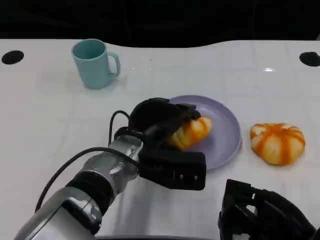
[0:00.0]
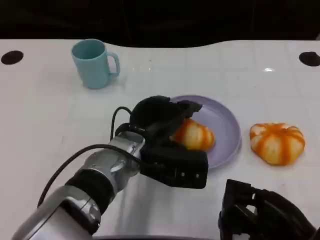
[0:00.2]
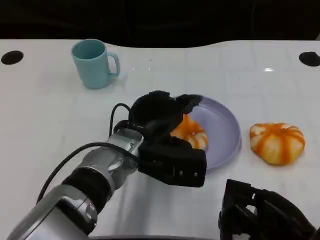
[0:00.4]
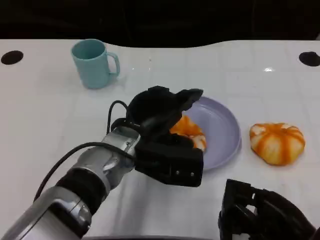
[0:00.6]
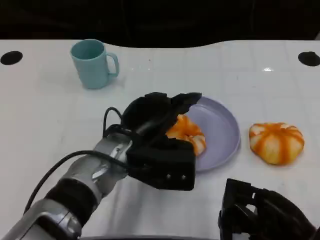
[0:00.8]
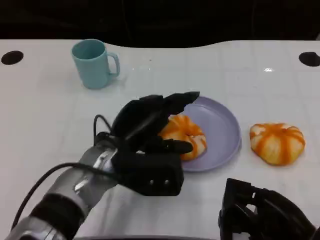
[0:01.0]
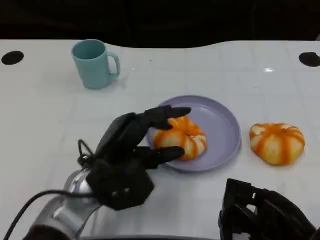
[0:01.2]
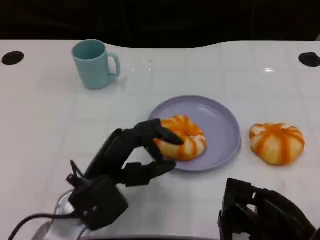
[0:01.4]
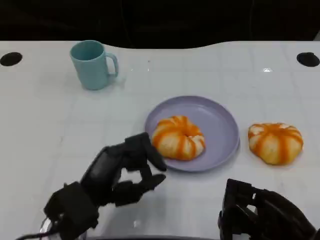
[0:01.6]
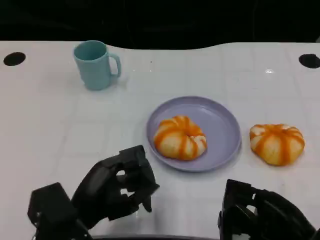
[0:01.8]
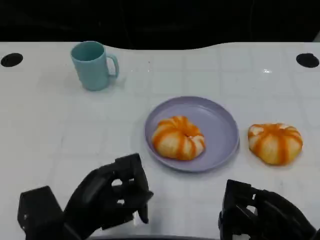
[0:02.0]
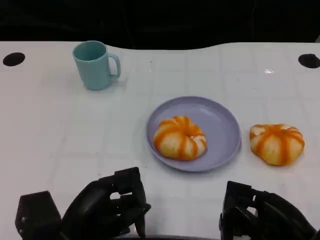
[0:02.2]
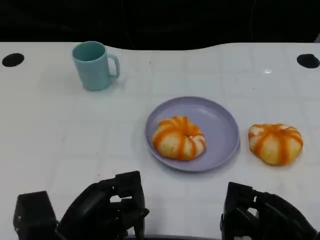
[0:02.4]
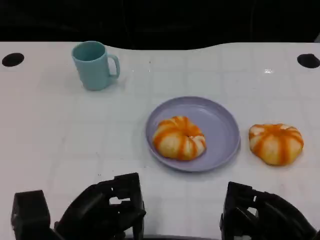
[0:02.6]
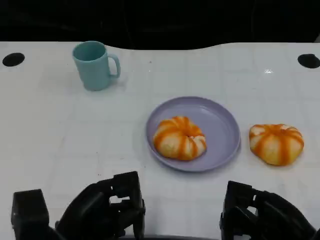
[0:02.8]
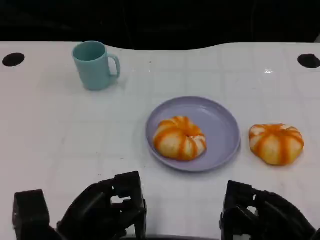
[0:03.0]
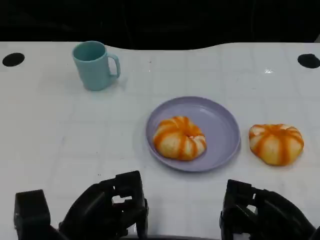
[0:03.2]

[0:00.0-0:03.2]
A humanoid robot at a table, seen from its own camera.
Task of the whole recording: Grasp the bread from the table and place it into the plate.
0:00.0 to 0:01.6: The left hand goes some 15 cm to the left and backward.

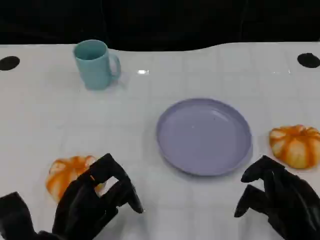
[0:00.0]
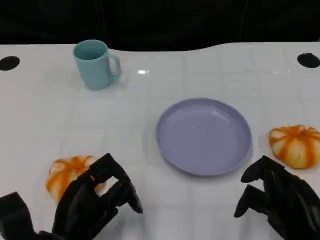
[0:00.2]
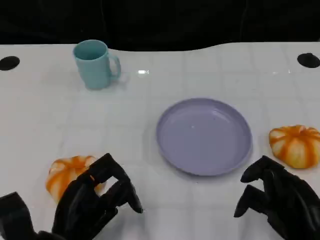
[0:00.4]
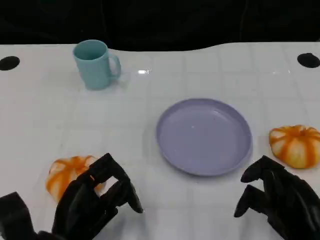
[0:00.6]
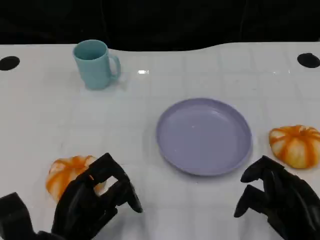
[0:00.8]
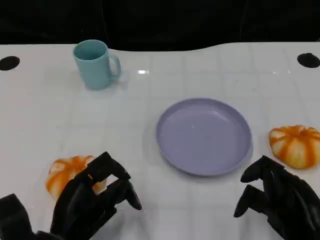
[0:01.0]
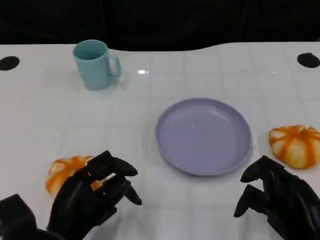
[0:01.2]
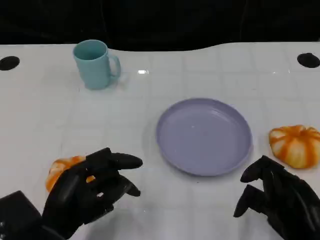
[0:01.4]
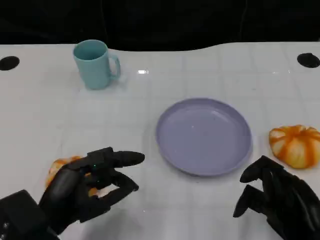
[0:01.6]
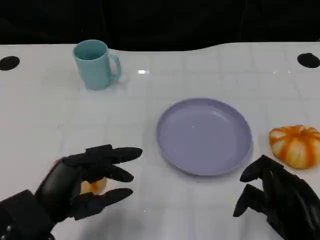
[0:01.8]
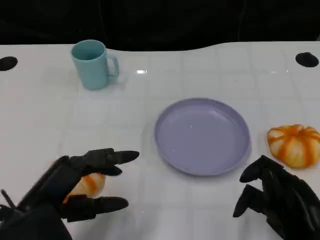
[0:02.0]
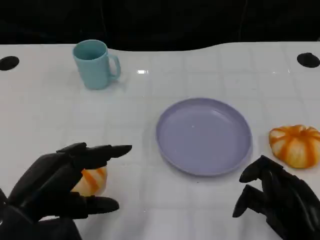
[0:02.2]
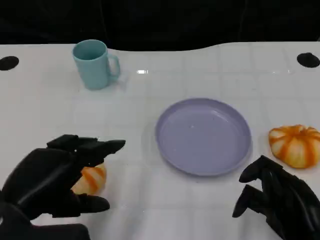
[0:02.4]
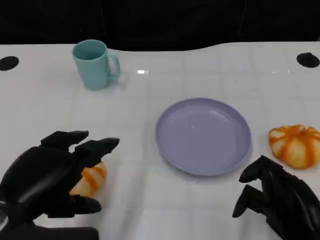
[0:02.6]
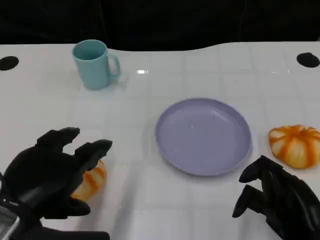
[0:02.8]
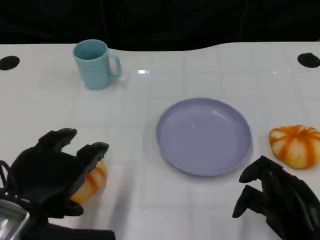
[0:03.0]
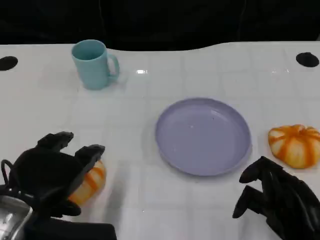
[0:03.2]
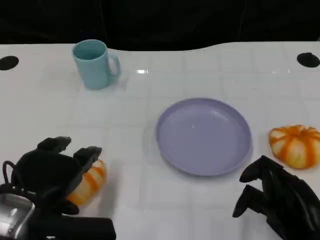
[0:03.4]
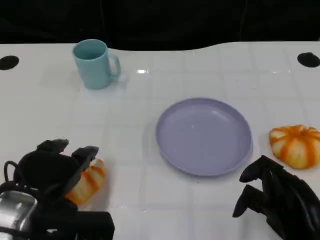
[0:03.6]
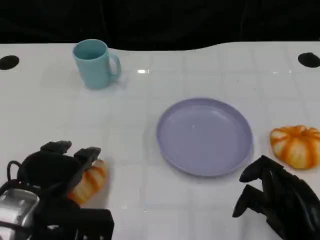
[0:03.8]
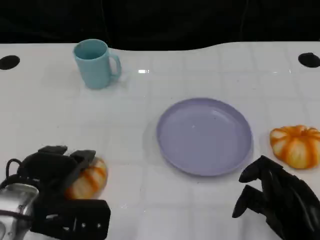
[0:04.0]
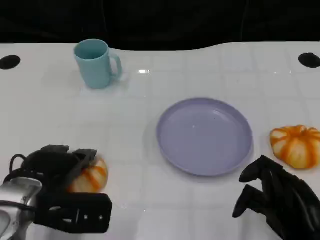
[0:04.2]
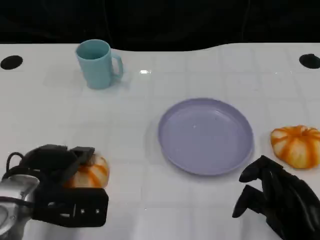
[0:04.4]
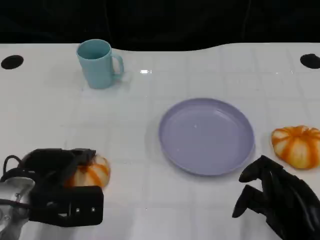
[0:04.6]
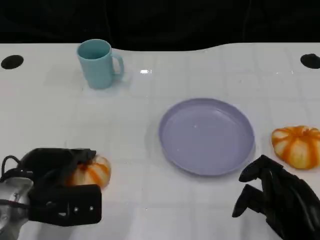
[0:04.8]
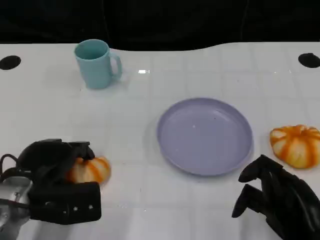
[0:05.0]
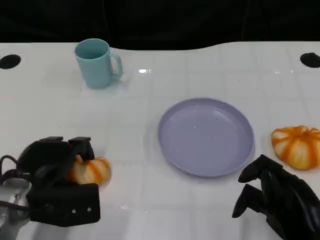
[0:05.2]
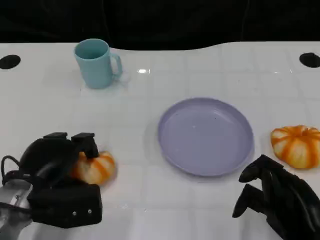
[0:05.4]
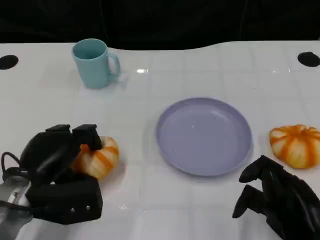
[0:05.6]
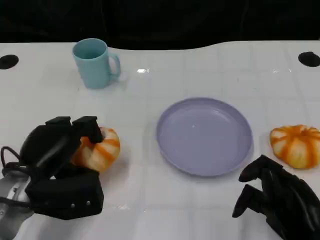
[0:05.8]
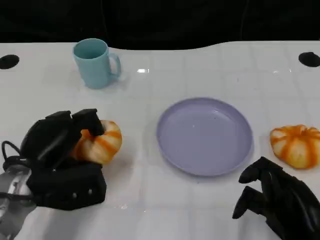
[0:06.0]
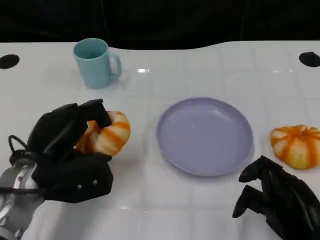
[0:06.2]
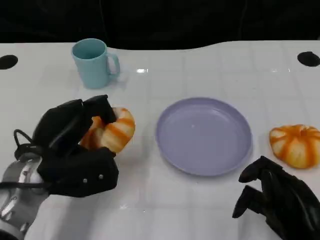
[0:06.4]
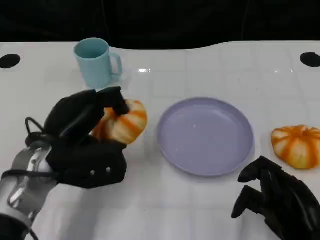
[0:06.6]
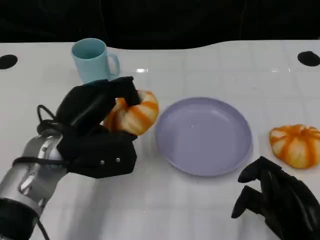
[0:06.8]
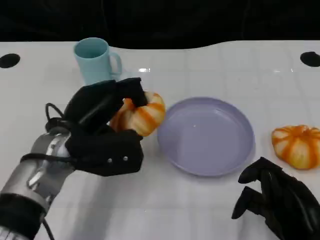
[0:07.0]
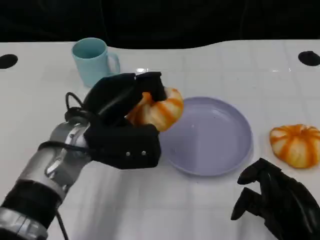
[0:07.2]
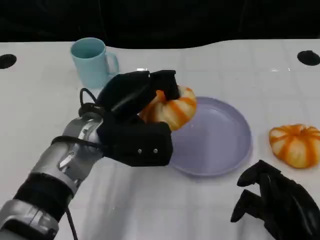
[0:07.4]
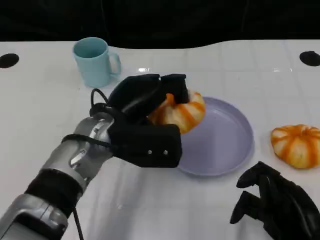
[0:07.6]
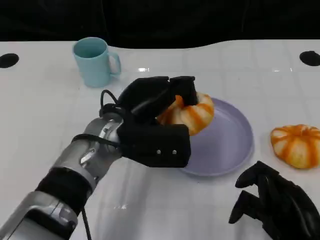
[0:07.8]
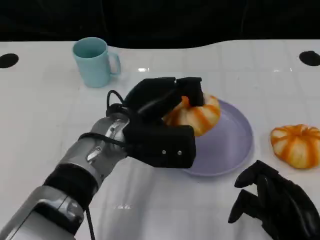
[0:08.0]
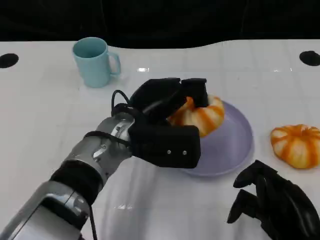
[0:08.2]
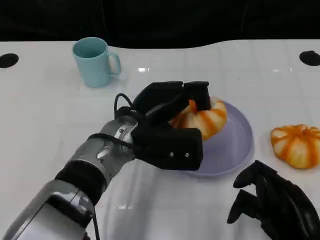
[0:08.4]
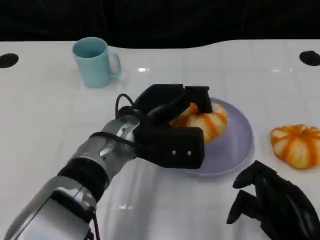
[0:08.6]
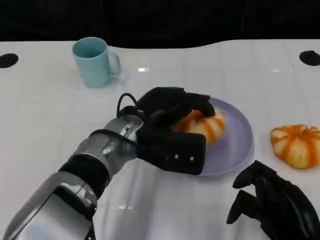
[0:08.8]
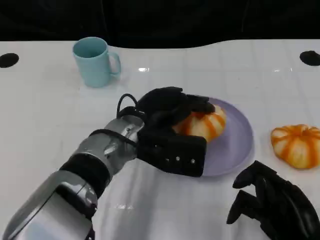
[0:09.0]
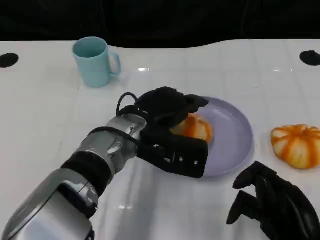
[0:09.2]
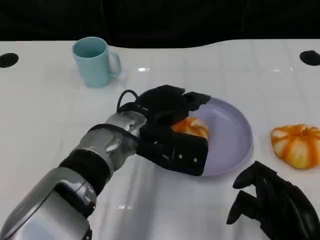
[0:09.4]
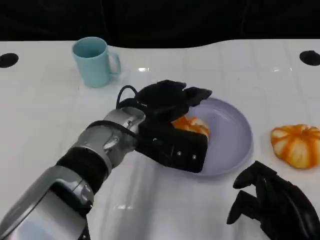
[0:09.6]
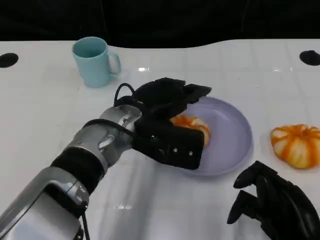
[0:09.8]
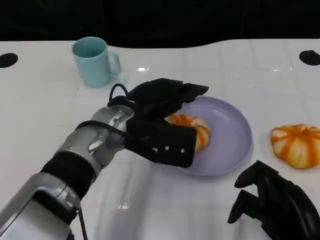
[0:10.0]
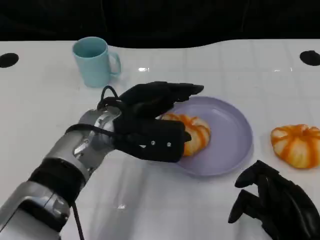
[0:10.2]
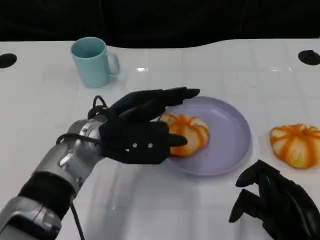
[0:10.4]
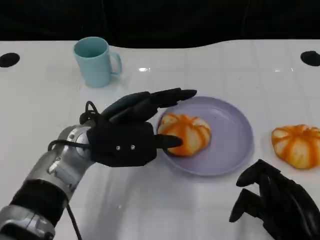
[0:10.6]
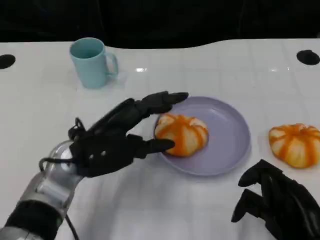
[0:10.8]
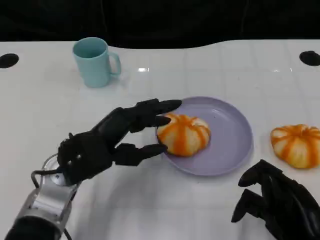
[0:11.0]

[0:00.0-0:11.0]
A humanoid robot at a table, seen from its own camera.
Task of the whole recording: Grasp the bread from the table and place it into the plate.
0:01.6 to 0:03.2: The left hand moves upward, about 5 cm.
0:03.2 to 0:04.8: The left hand moves downward and forward, about 10 cm.
0:06.2 to 0:07.8: The left hand moves to the right, roughly 10 cm.
0:09.4 to 0:11.0: The left hand goes approximately 10 cm to the left.

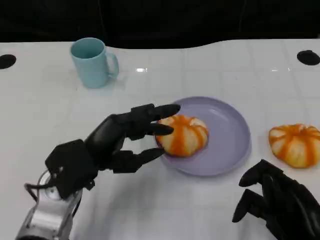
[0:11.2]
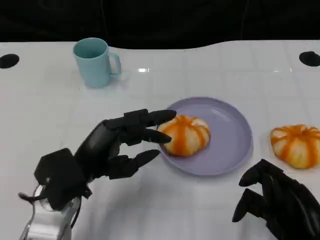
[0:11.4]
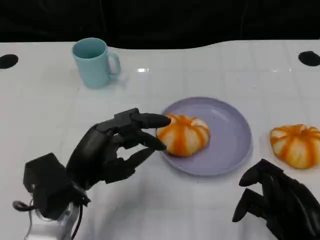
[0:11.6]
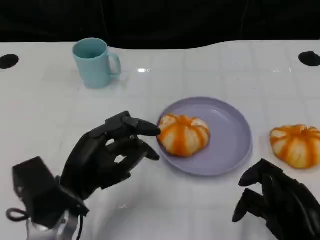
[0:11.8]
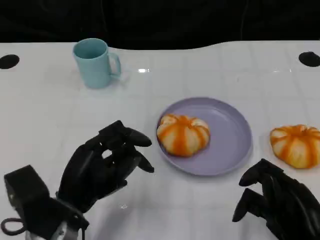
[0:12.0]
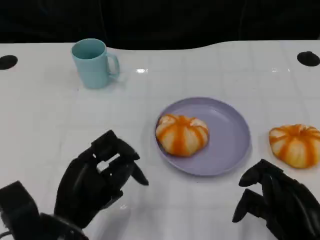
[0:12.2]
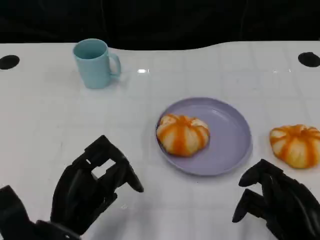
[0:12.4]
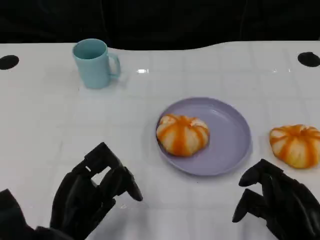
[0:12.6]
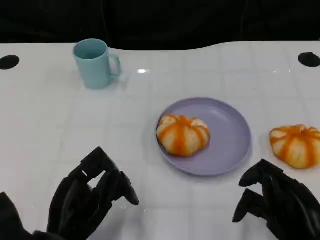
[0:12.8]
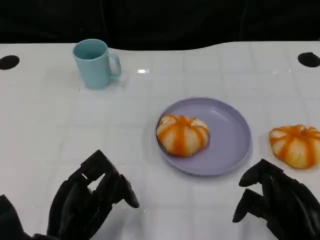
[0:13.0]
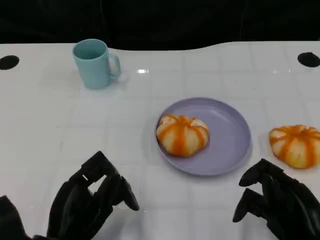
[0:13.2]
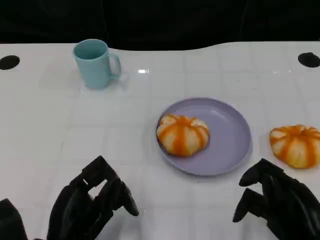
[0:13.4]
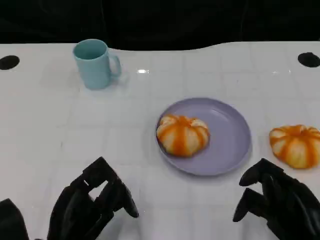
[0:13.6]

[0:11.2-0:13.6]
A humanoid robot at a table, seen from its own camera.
Task of the whole recording: Grasp the bread from the table and place it into the plate.
0:11.2 to 0:12.4: The left hand shifts some 5 cm backward.
0:12.4 to 0:13.6: The hands move only a little.

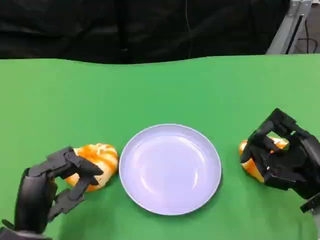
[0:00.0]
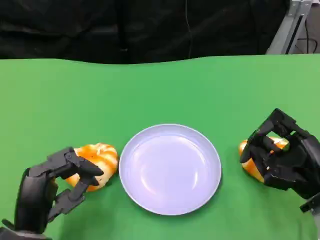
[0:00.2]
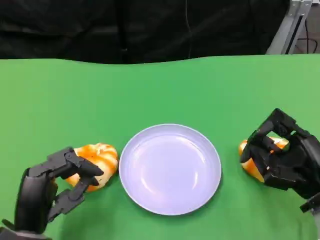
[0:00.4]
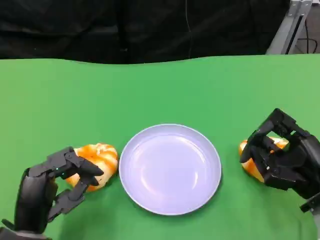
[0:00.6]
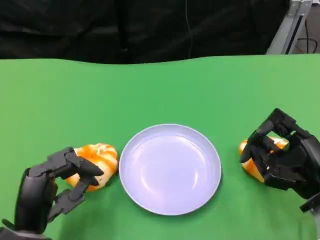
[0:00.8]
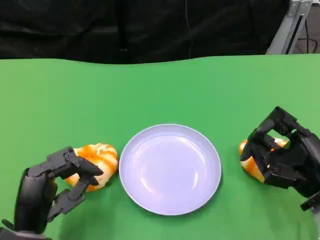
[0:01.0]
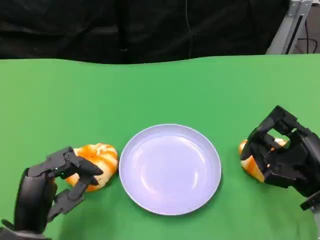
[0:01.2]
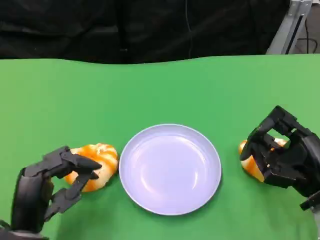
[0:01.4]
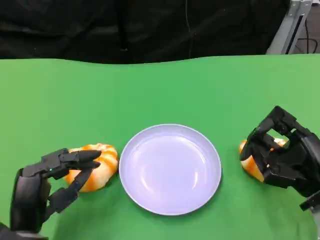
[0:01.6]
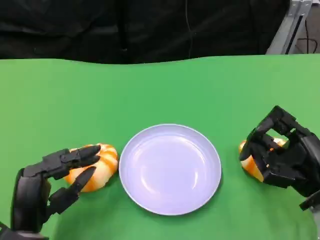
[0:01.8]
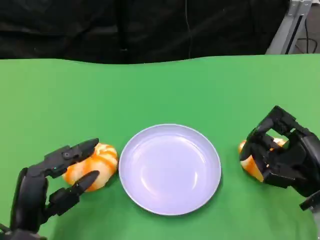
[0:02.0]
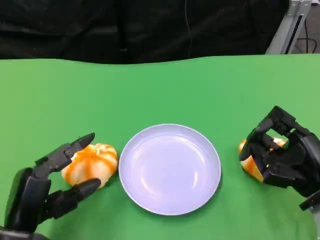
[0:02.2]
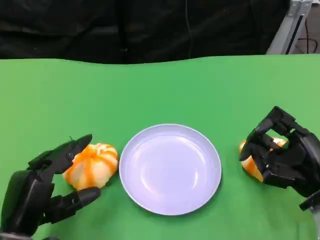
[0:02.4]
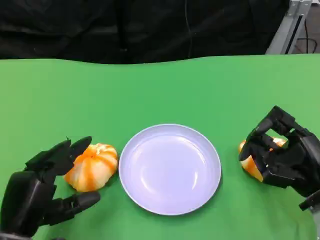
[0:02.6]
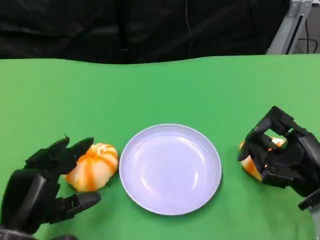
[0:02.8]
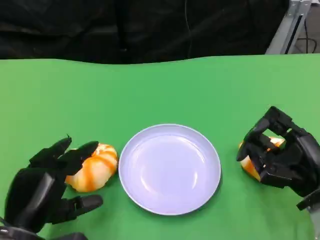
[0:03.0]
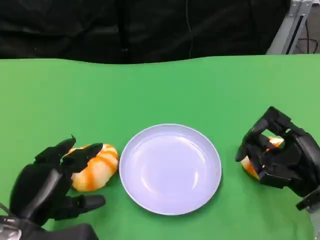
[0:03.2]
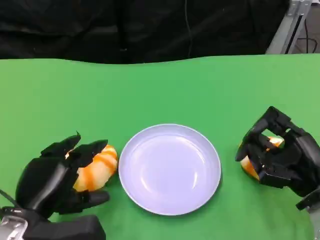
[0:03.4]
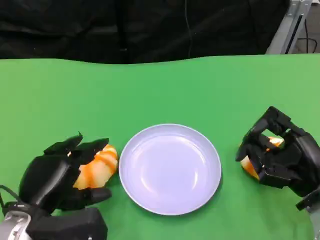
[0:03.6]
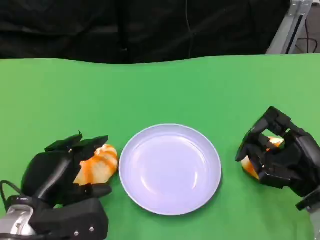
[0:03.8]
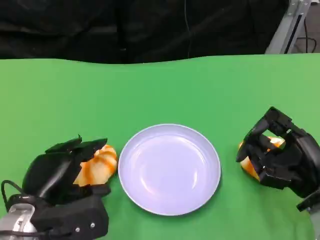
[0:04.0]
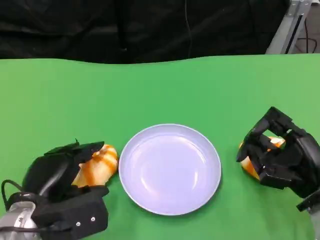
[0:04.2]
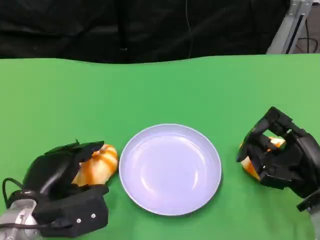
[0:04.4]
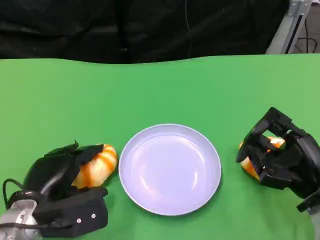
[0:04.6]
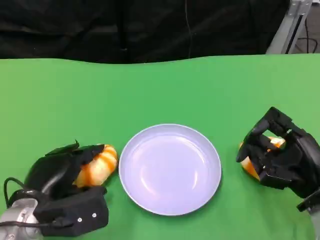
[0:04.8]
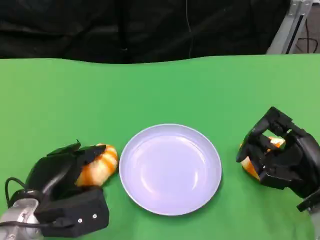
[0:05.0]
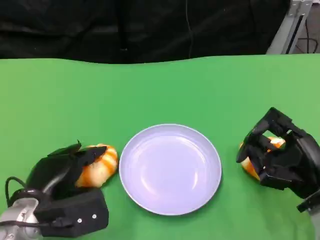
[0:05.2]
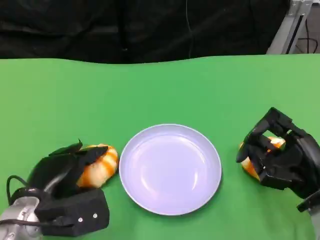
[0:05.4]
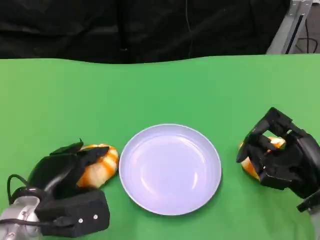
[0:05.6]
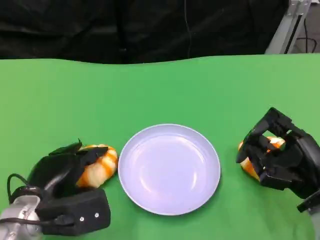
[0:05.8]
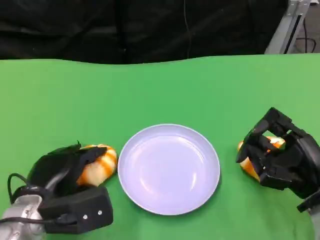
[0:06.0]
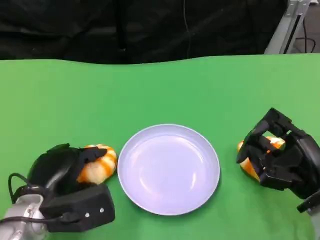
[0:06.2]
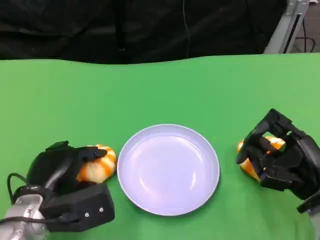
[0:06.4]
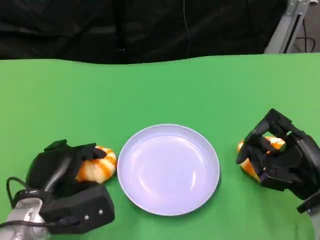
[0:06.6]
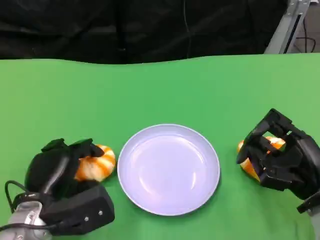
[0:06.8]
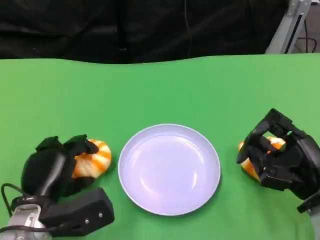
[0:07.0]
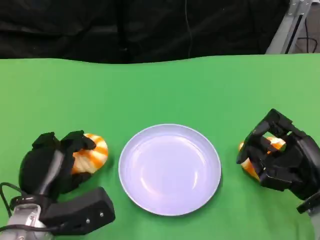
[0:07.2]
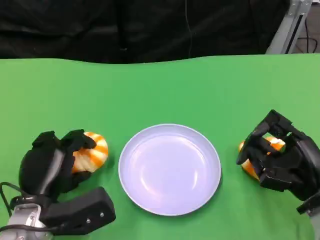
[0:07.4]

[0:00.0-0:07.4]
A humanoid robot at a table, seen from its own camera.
Task of the whole recording: Grasp the bread from the table and place it into the plate.
0:00.0 to 0:01.4: Both hands stay about where they are.
0:03.0 to 0:04.4: The left hand changes place by about 5 cm.
0:04.4 to 0:06.0: The hands stay close to where they were, moving slightly.
